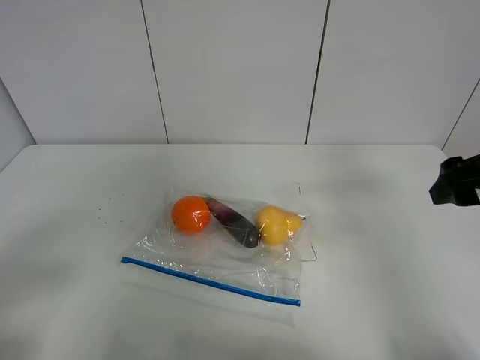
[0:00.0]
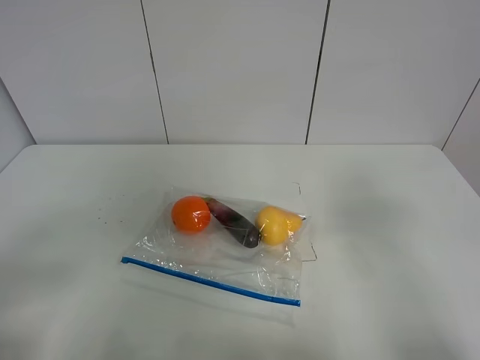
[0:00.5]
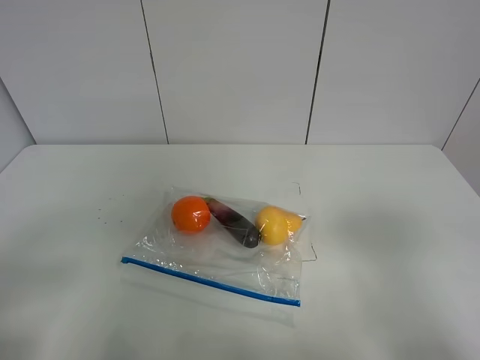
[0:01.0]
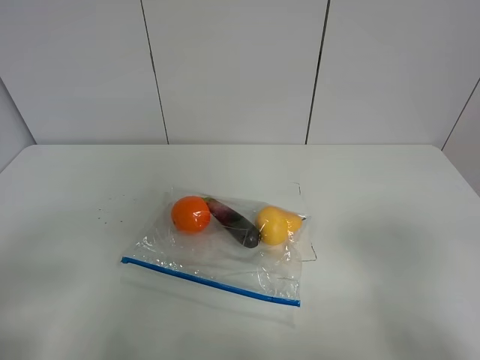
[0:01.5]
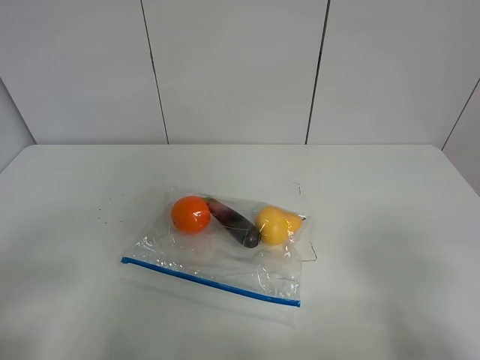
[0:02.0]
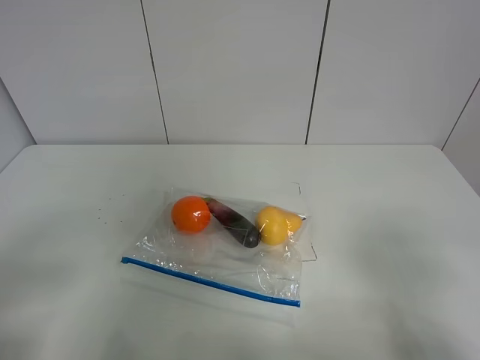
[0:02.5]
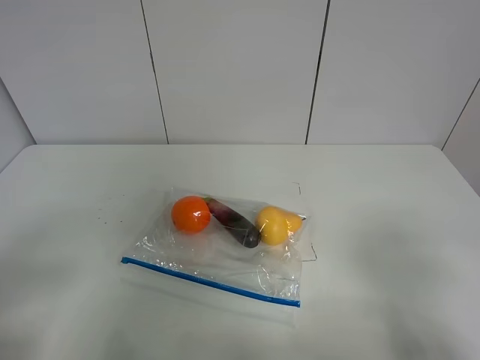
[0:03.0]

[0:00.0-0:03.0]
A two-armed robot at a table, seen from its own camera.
0:00.0 to 0:01.5: The right gripper is displaced backward by approximately 20 cm.

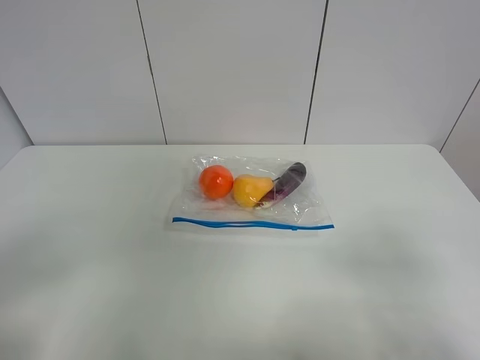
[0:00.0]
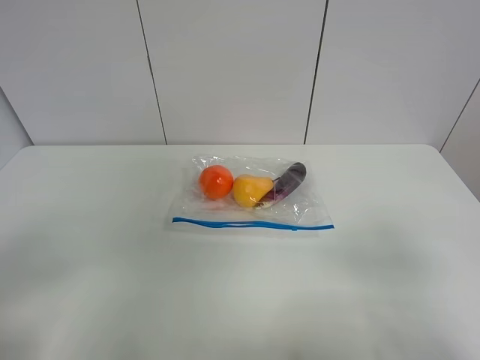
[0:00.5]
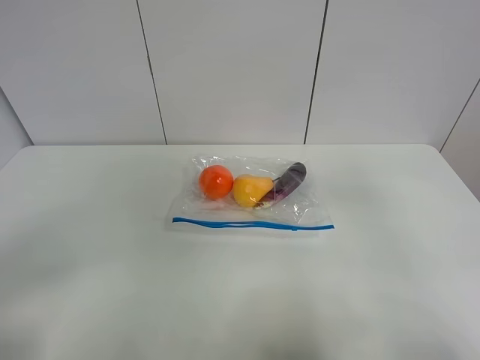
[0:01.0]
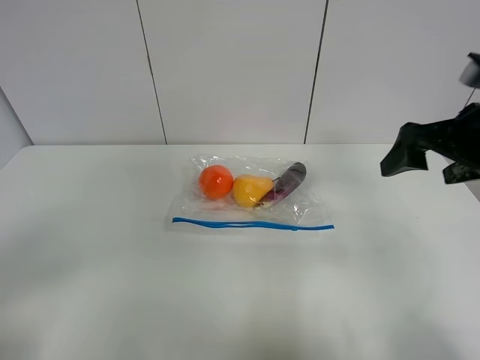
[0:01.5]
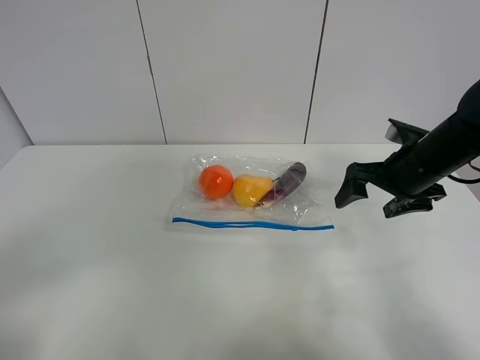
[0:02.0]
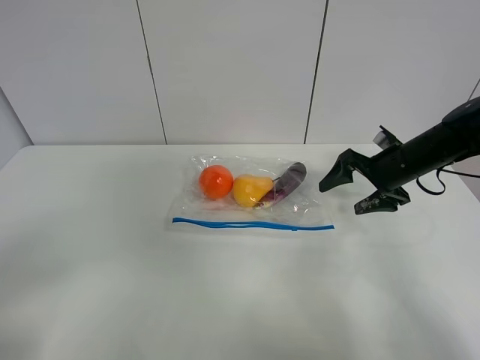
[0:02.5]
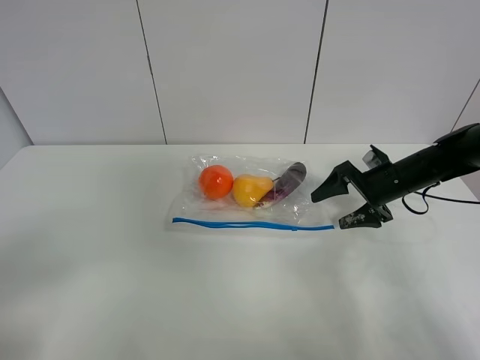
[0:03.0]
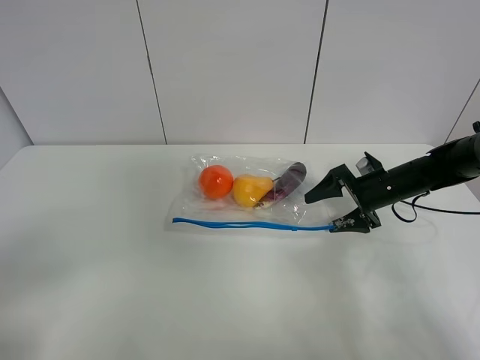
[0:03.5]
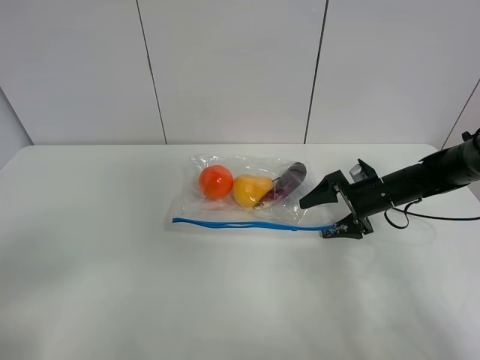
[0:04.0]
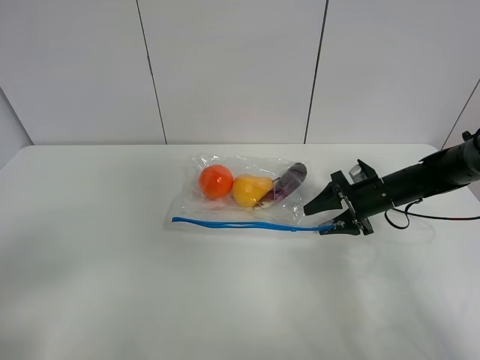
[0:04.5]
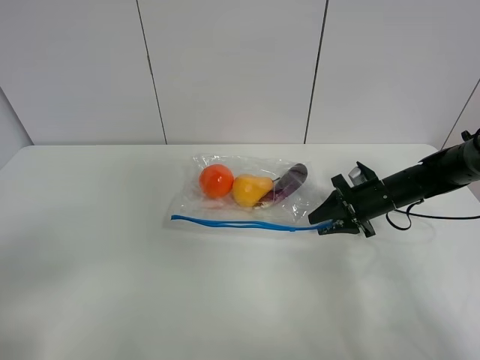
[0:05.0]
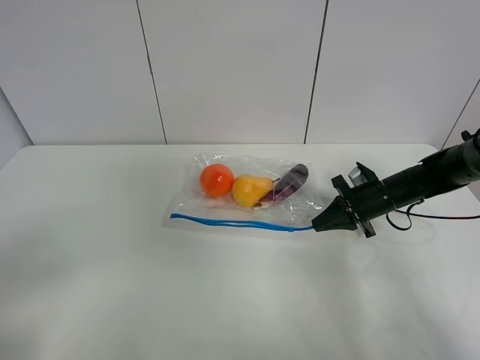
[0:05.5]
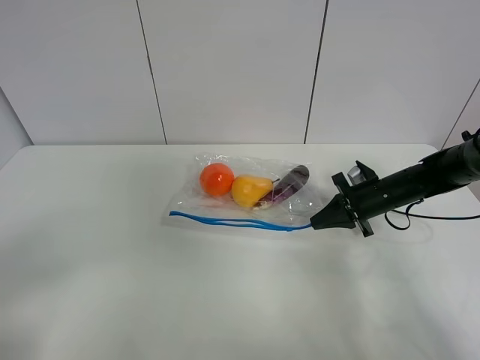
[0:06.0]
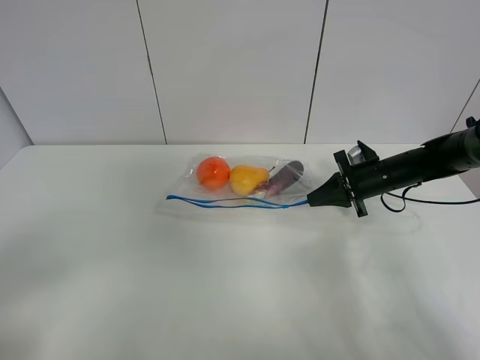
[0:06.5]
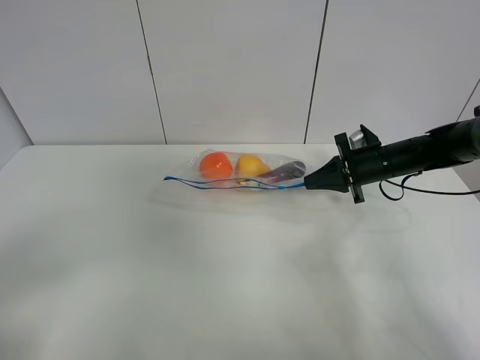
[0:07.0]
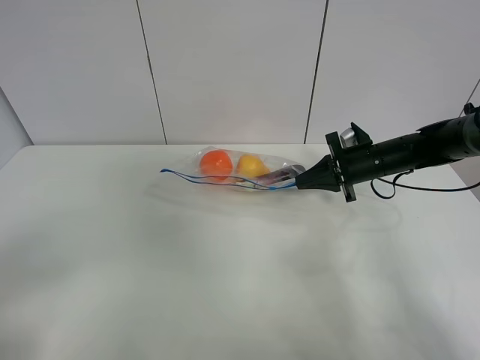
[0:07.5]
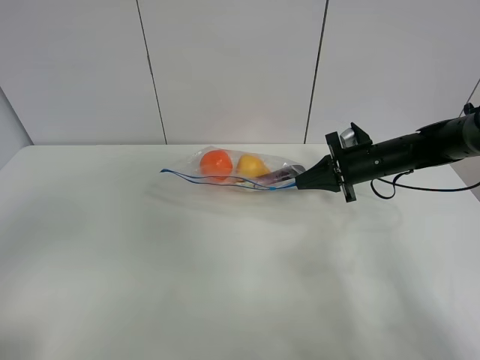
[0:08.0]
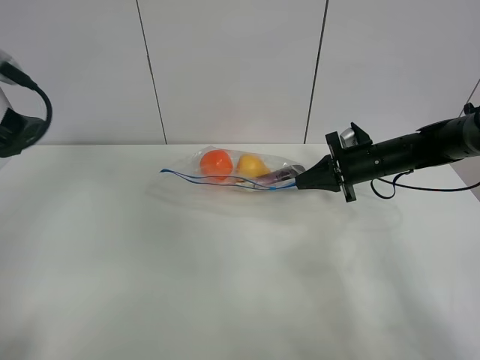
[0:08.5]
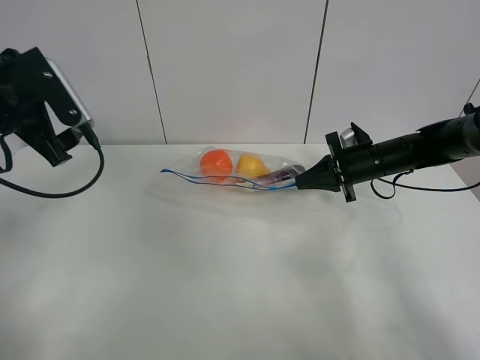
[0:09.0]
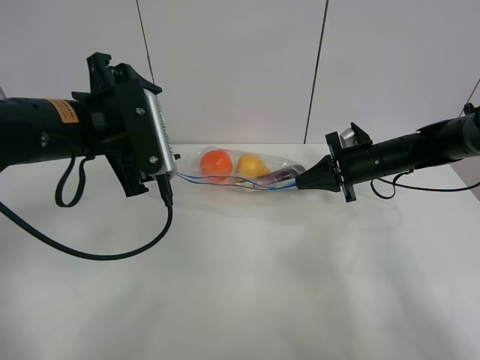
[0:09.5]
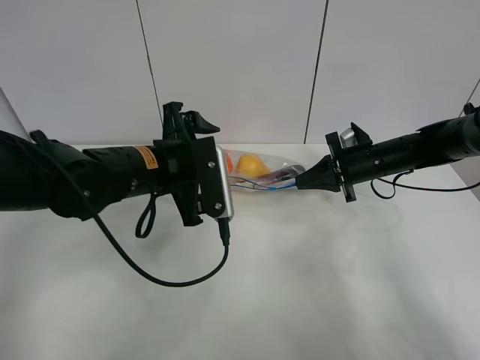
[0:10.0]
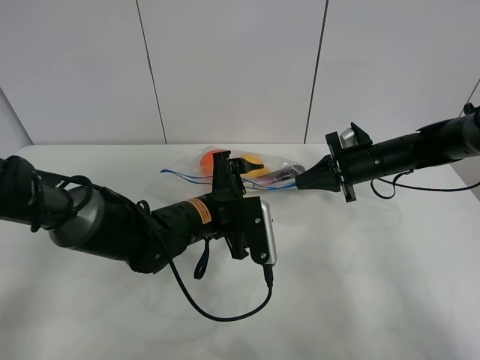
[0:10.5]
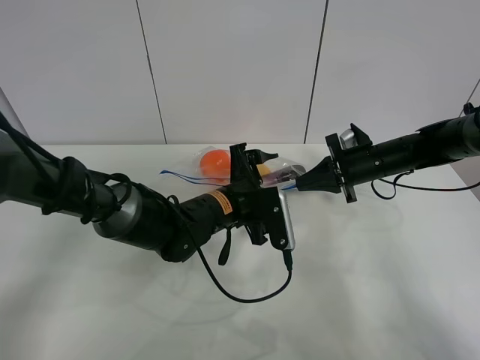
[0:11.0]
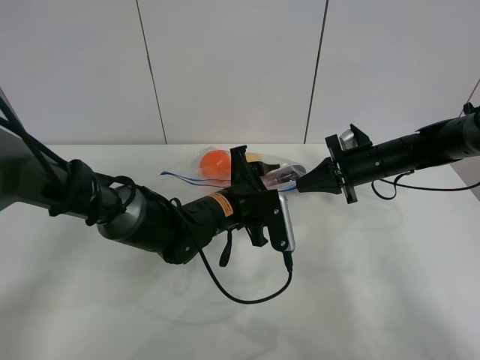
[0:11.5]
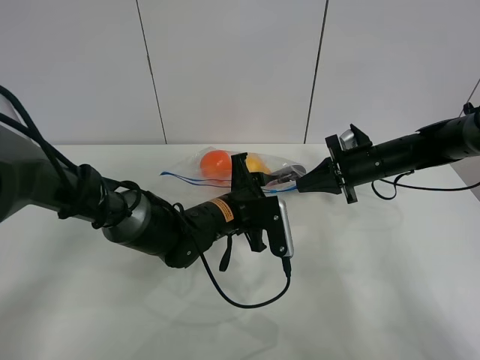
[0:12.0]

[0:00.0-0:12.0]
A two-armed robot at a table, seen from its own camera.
Step, 0:00.0 to 0:05.0: Grasp the fruit bag with right gripper.
Step, 0:05.5 to 0:07.5: Lift the fruit bag with your right gripper.
0:00.0 to 0:02.0: The right gripper is displaced forward by about 30 cm.
0:02.0 to 0:04.0: The right gripper heads downward and forward, covering some 10 cm.
0:04.0 to 0:06.0: The right gripper closes up.
0:06.0 to 0:08.0: The right gripper goes some 5 cm upward; the left gripper goes some 10 cm upward and forward.
0:08.0 to 0:10.0: The left gripper goes about 35 cm forward, to the right and downward.
0:10.0 to 0:12.0: The left gripper heads downward and to the right, covering approximately 15 cm, and closes.

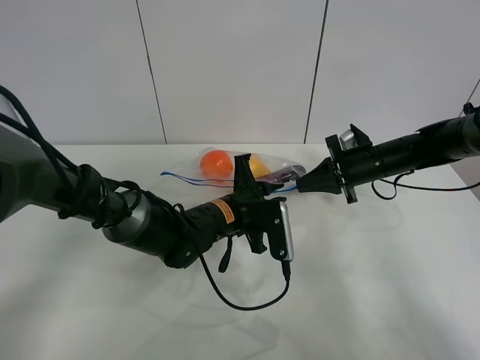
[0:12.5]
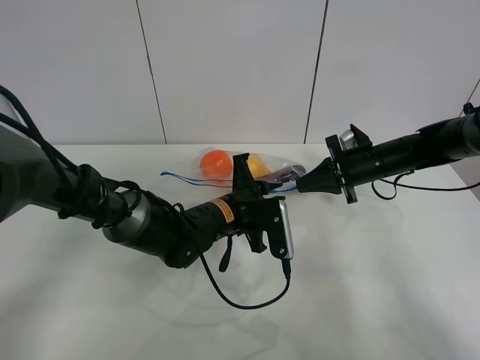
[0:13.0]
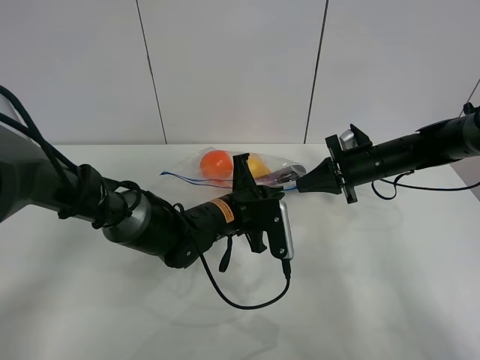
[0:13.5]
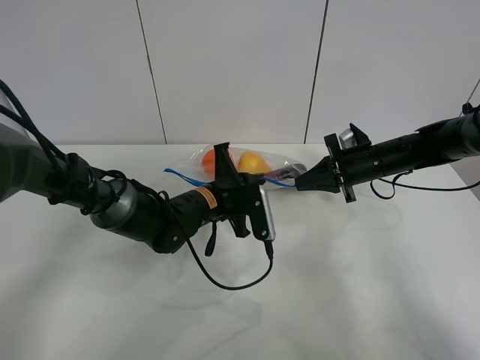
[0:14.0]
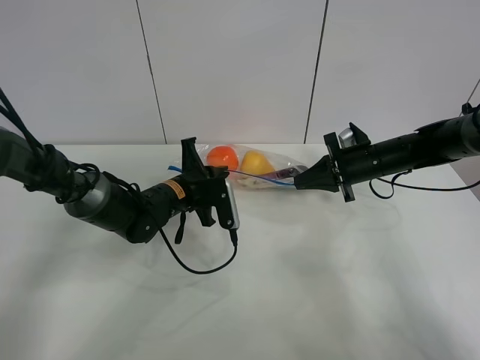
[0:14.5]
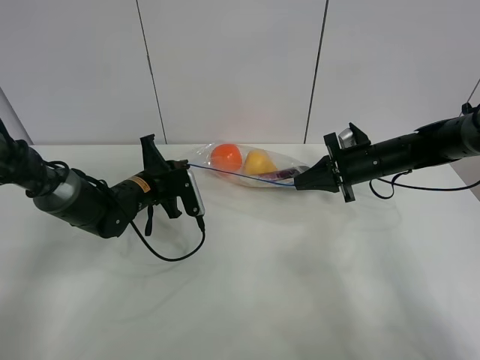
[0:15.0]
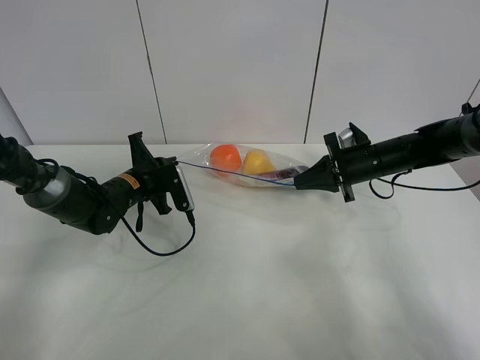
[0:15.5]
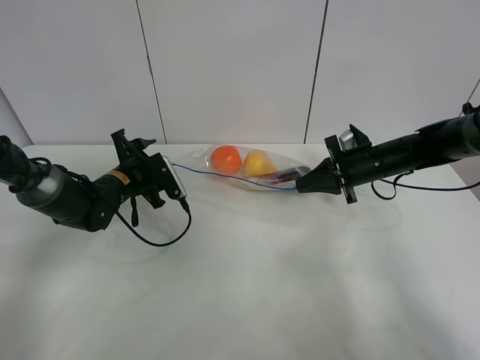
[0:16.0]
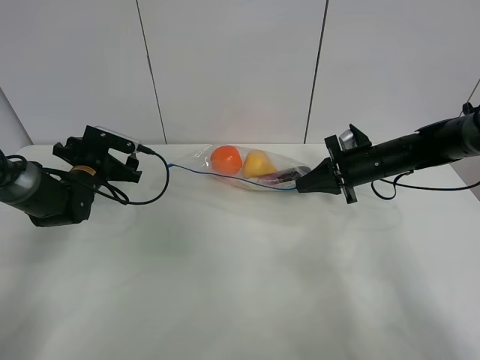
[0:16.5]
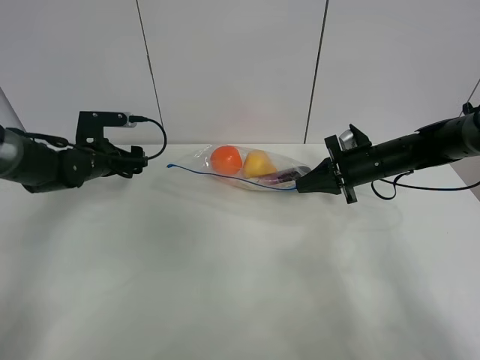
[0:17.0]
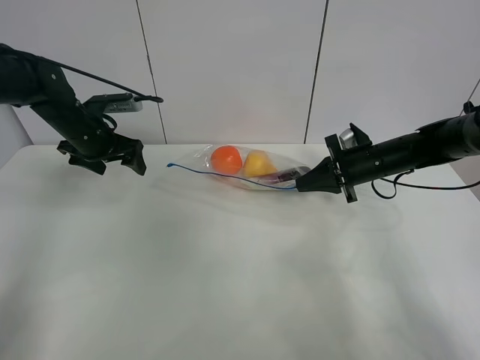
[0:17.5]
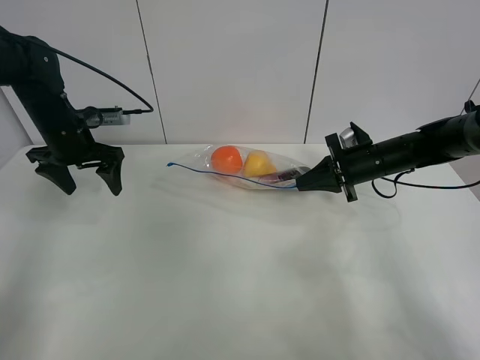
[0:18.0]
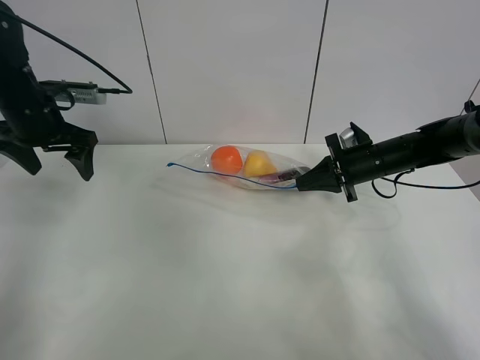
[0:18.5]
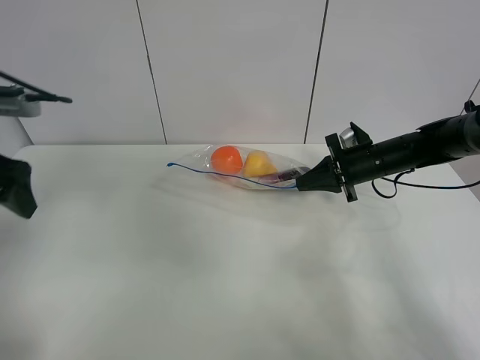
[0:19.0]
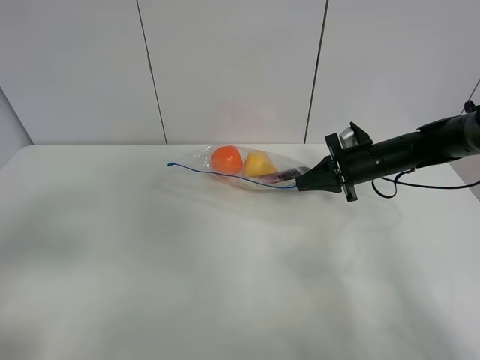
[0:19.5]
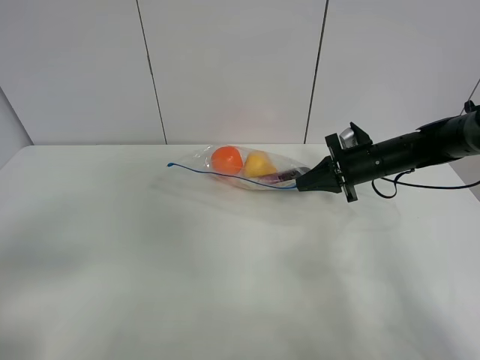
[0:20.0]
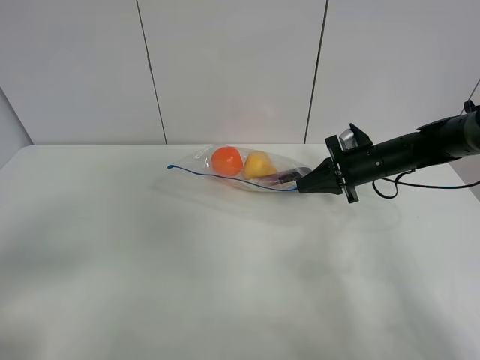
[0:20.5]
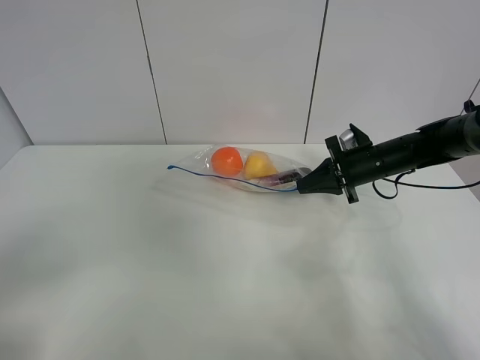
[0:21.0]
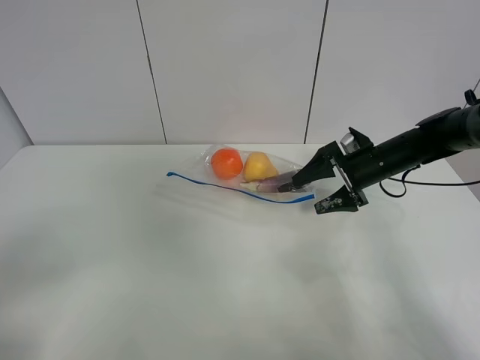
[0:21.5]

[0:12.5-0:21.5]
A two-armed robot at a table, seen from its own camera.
Step, 0:12.5 to 0:16.0: Pull the fruit bag with left gripper.
0:12.5 to 0:14.5: The left gripper shifts some 10 cm to the left and forward.
0:14.5 to 0:17.0: The left gripper moves to the left, approximately 15 cm, and opens.
0:17.0 to 0:19.5: The left gripper travels backward and upward by approximately 40 cm.
0:19.5 to 0:21.5: The left gripper heads backward, covering about 10 cm, while the right gripper opens up.

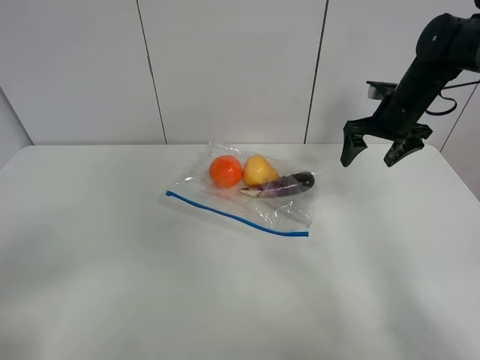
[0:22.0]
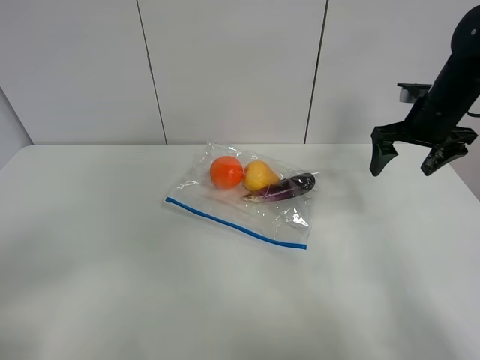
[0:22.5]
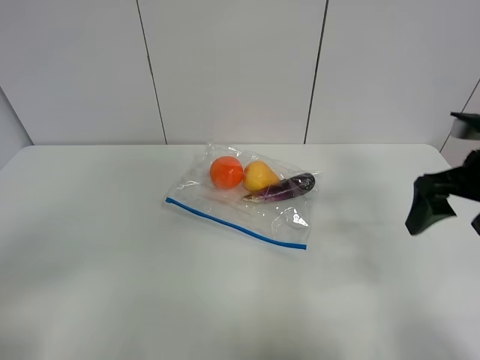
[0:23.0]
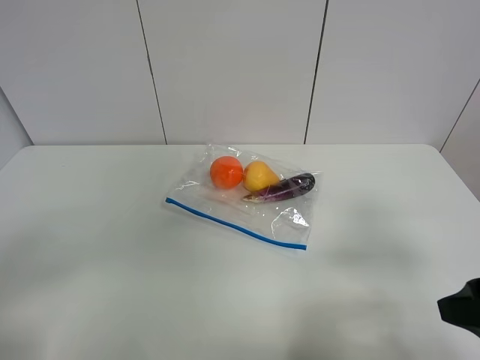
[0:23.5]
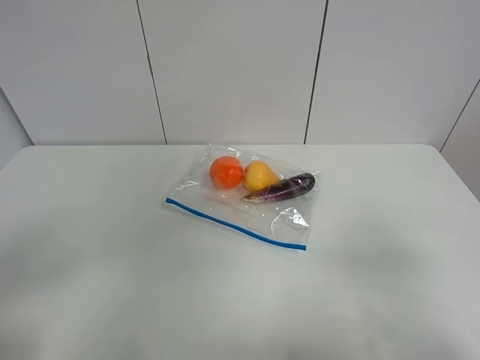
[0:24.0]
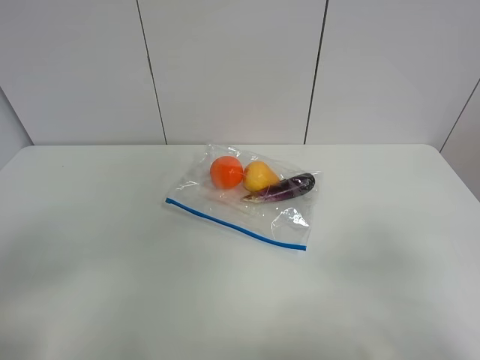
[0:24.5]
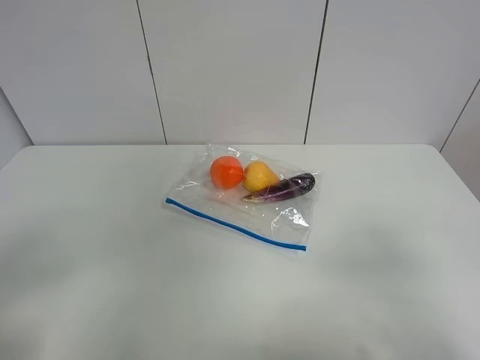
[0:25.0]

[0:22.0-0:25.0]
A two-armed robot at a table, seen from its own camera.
0:22.0 to 0:23.5: The right gripper shifts roughly 35 cm backward.
0:23.5 to 0:25.0: The right gripper shifts some 10 cm backward.
